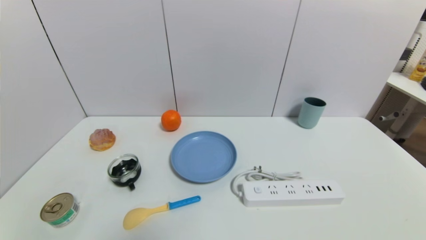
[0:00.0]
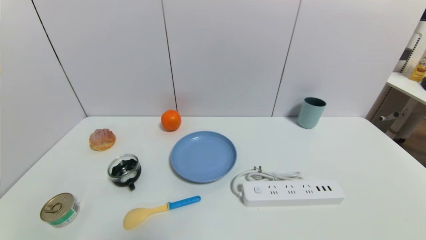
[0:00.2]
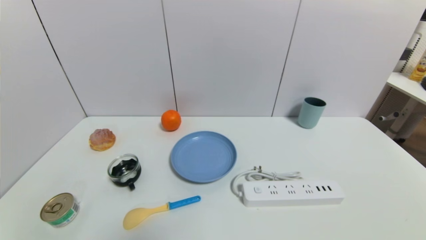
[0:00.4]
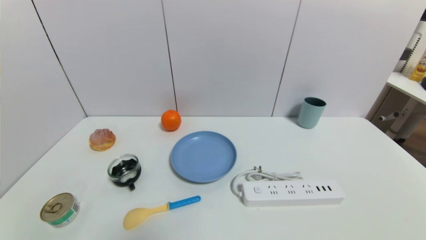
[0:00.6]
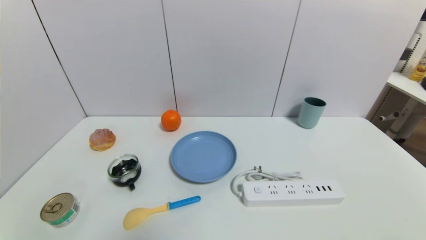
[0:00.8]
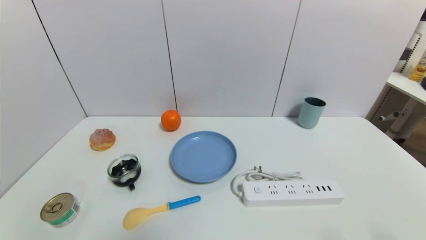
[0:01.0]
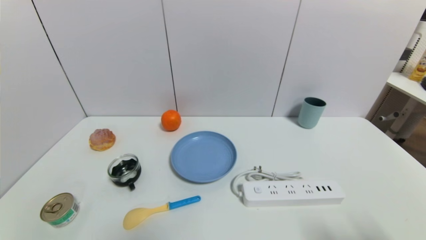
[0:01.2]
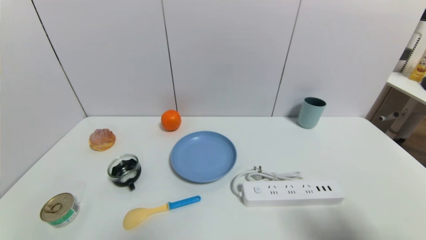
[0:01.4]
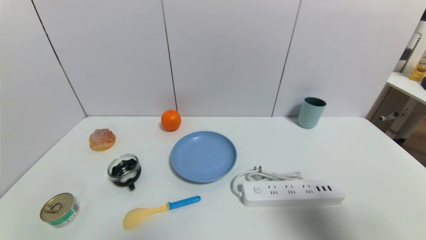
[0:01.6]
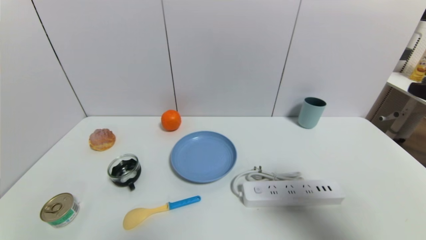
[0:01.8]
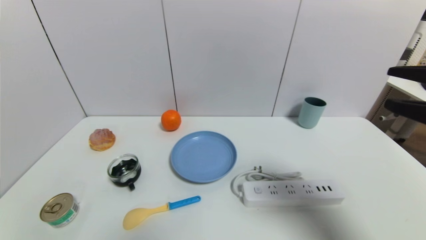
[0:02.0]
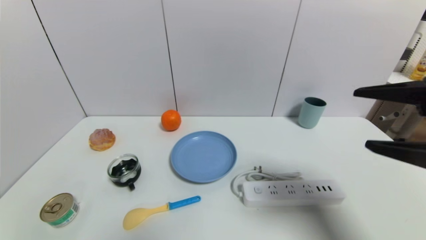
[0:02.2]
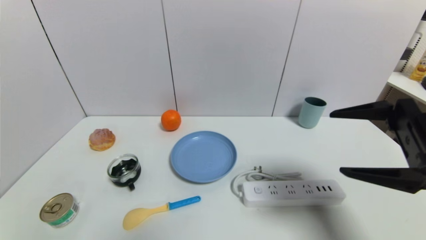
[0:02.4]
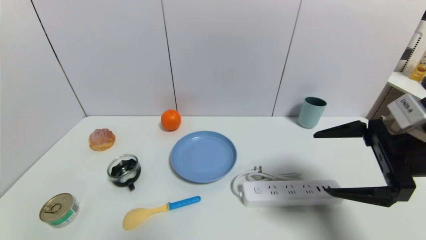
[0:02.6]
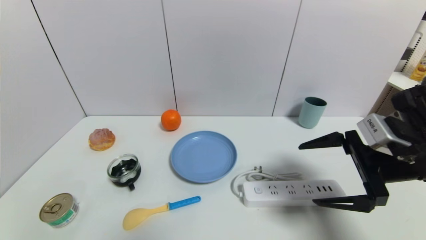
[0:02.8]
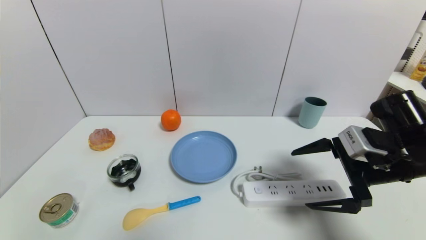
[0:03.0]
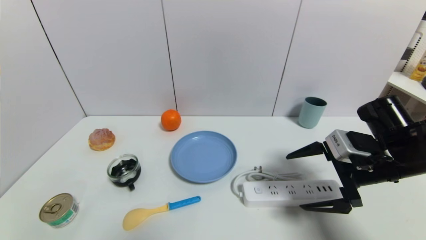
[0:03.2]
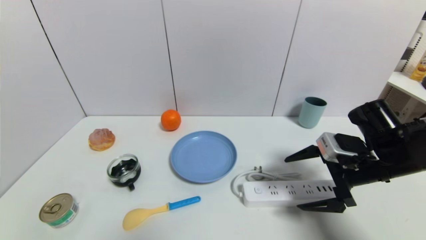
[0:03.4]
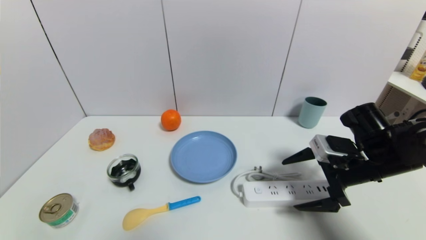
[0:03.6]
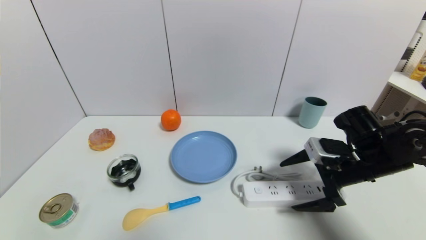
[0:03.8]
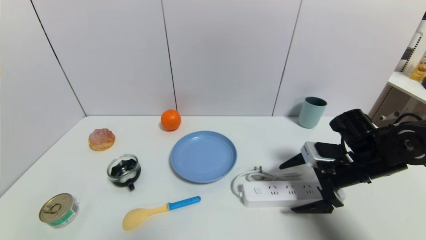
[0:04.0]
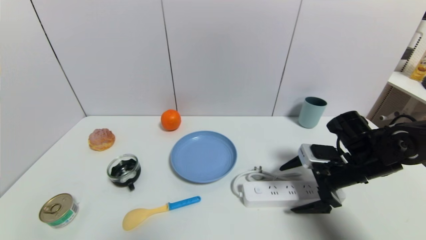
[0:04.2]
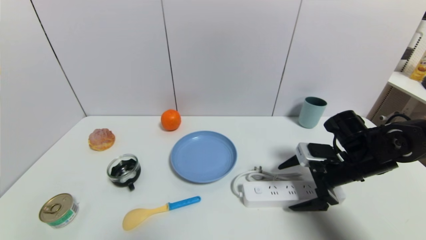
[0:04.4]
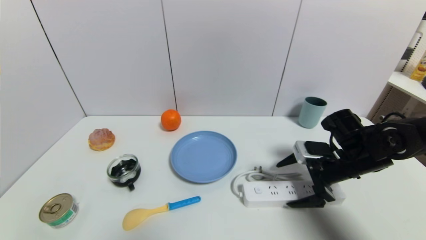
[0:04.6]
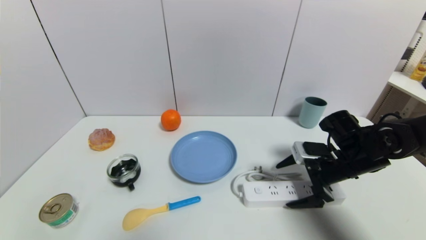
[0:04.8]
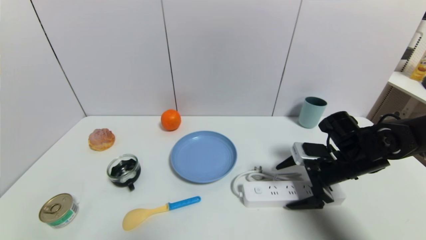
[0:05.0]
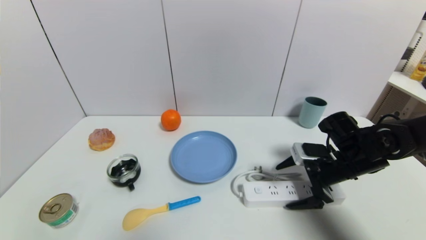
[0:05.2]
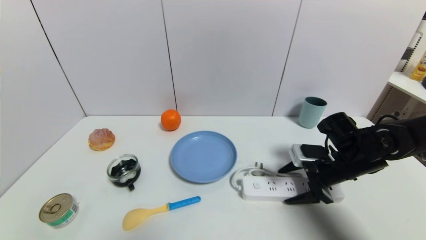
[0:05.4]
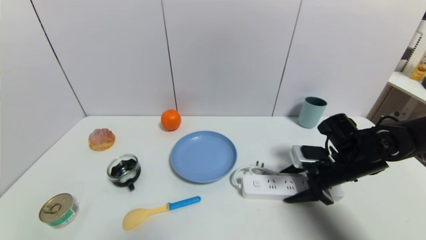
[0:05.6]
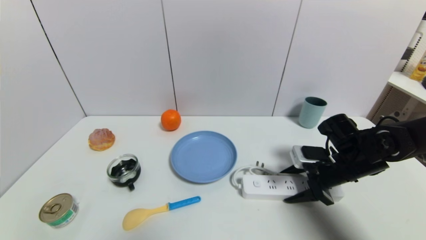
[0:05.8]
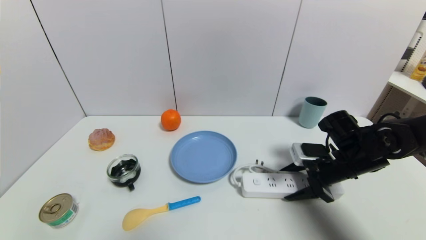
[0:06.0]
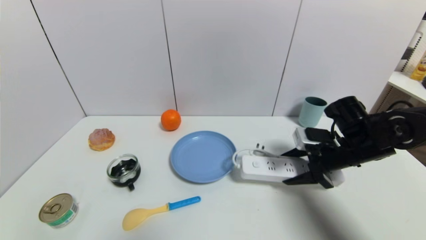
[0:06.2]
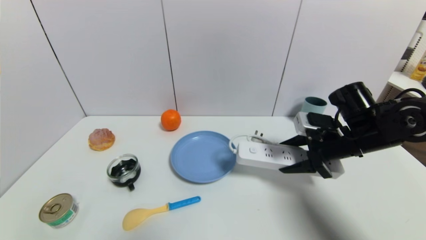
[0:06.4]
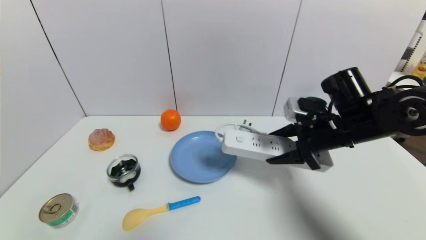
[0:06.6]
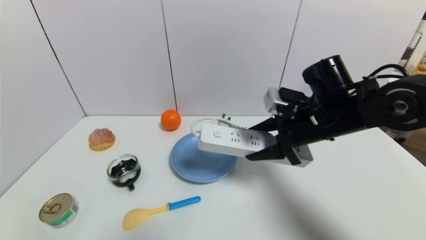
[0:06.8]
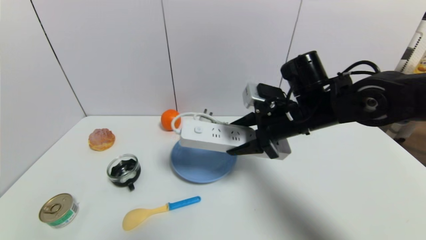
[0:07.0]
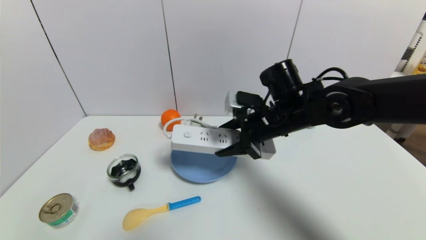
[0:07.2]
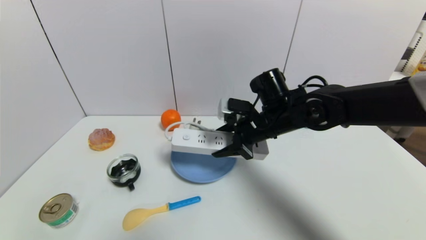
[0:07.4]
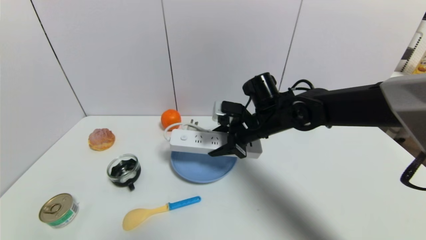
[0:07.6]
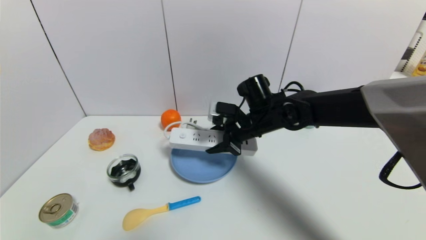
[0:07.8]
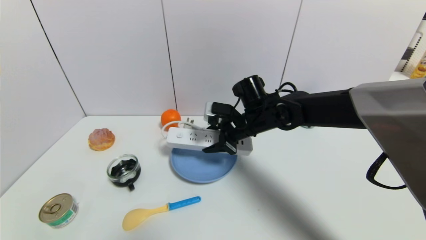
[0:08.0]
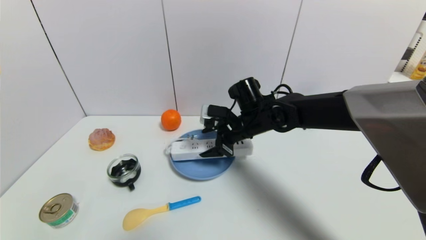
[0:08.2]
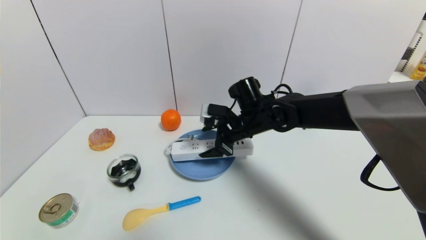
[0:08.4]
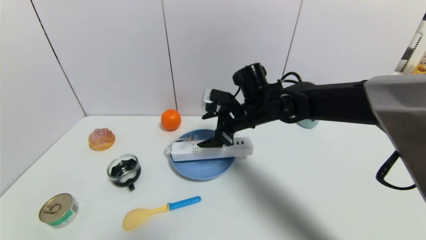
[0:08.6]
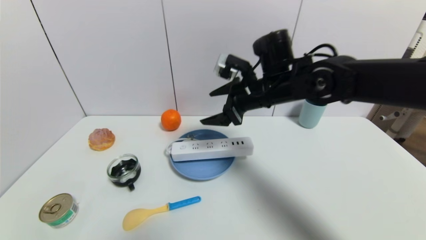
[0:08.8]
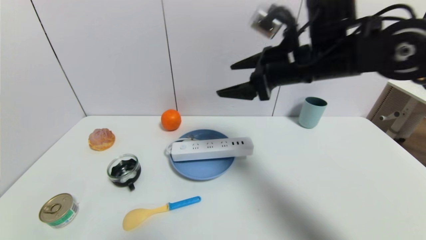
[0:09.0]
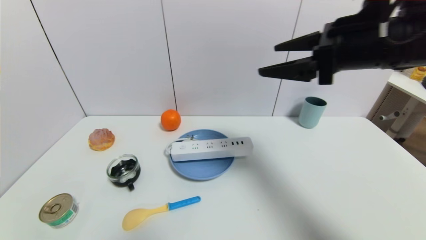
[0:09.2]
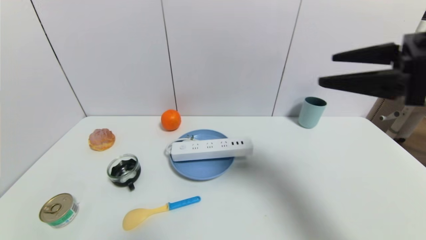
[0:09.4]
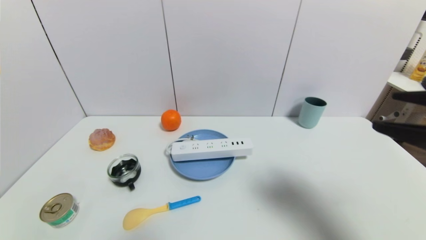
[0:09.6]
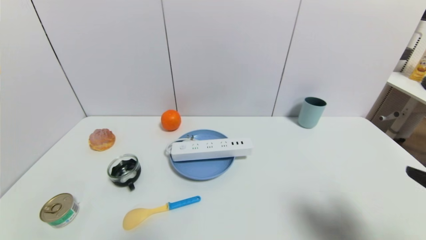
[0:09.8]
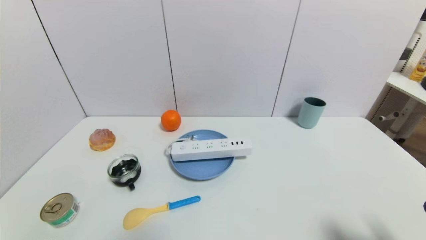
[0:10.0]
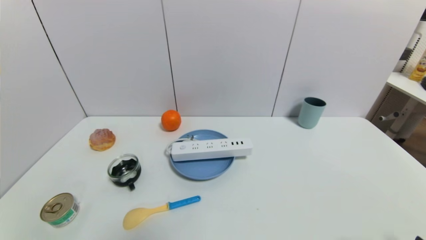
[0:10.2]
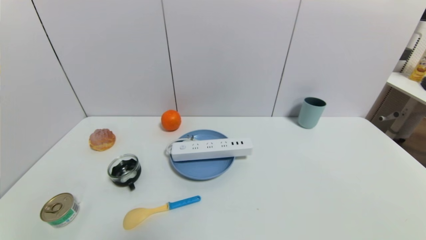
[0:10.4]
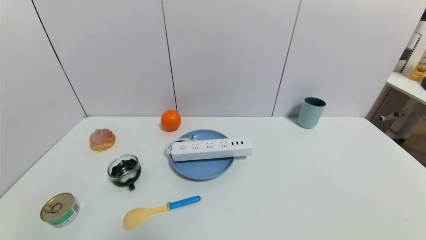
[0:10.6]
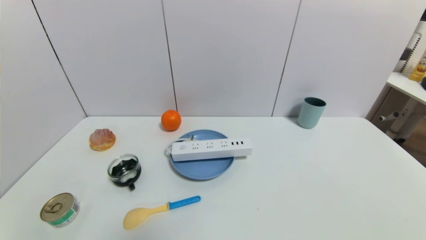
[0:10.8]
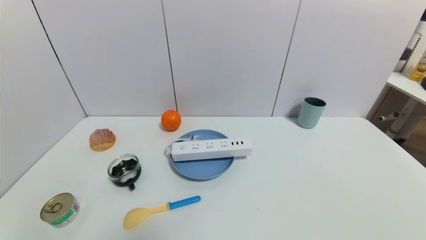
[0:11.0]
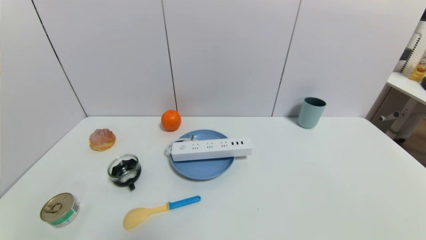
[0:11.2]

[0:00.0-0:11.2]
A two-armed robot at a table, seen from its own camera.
Task of the whole recording: use a gripper to pick the target object and place on the blue plate.
Step, 0:00.0 to 0:05.4: Grasp the plugboard with the right gripper.
Step, 0:05.6 to 0:08.2: Place the plugboard on the blue plate with the right gripper.
0:00.0 to 0:01.6: The right gripper is displaced upward and forward by some 25 cm.
0:01.6 to 0:03.2: The right gripper goes approximately 20 cm forward and downward.
0:03.2 to 0:04.8: The right gripper heads downward and forward, covering approximately 10 cm.
0:04.8 to 0:06.4: The right gripper travels upward by roughly 5 cm, and closes.
0:06.4 to 0:08.0: The right gripper moves to the left and forward, some 20 cm.
0:08.0 to 0:09.6: The right gripper travels backward, to the right and upward by some 35 cm, and opens.
0:09.6 to 0:11.2: The right gripper heads downward and backward, covering some 25 cm.

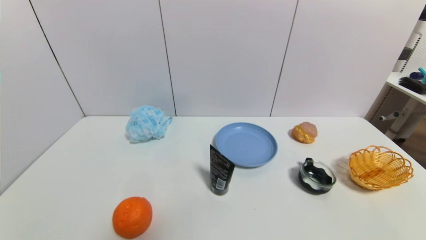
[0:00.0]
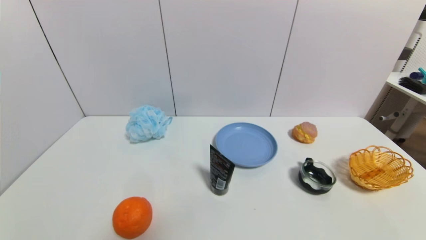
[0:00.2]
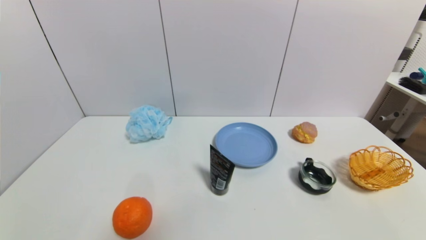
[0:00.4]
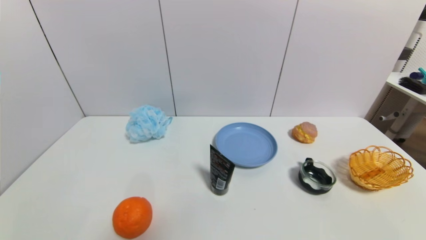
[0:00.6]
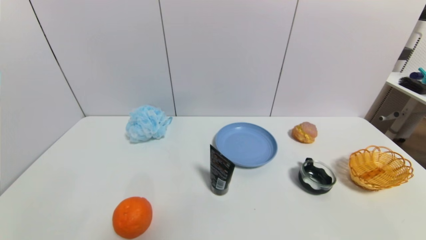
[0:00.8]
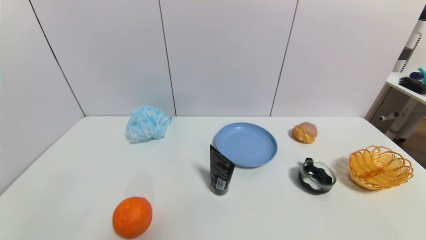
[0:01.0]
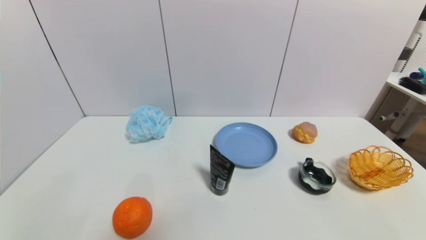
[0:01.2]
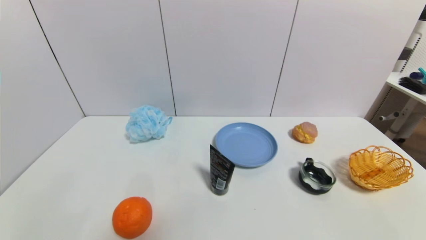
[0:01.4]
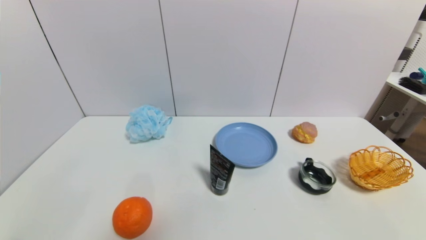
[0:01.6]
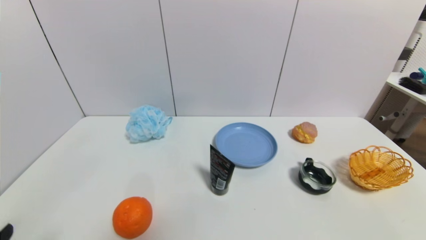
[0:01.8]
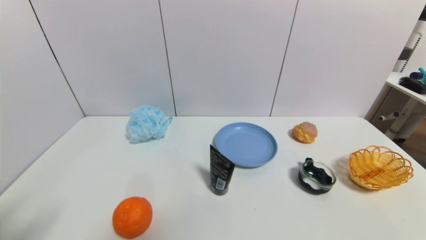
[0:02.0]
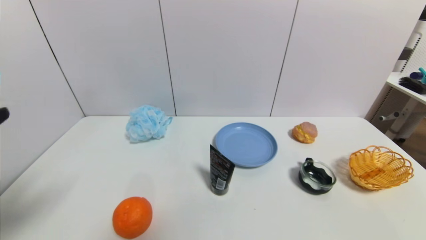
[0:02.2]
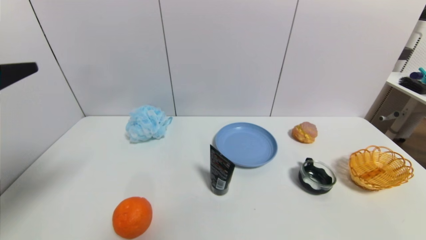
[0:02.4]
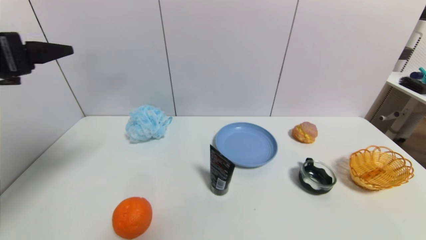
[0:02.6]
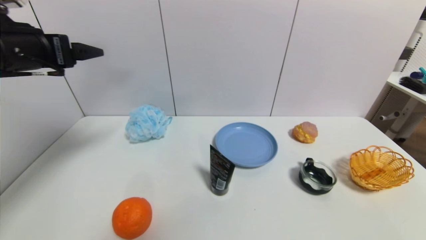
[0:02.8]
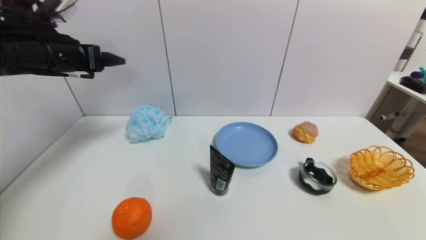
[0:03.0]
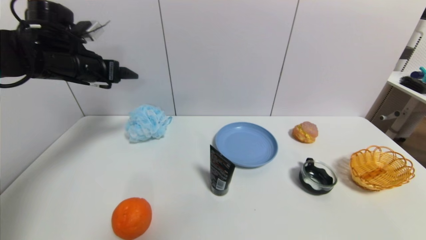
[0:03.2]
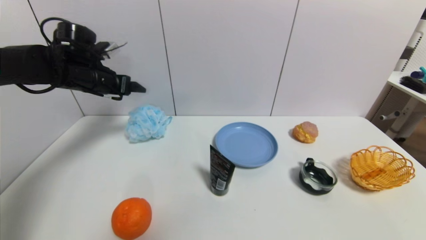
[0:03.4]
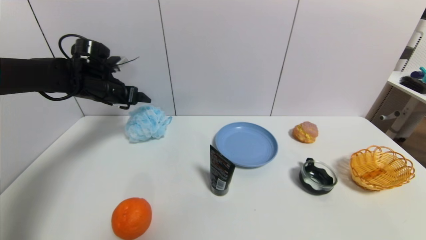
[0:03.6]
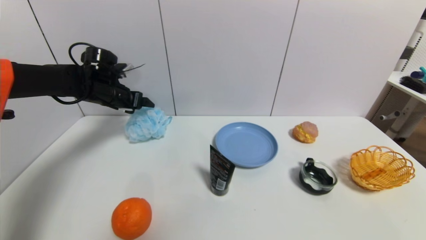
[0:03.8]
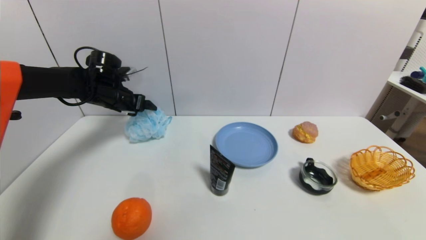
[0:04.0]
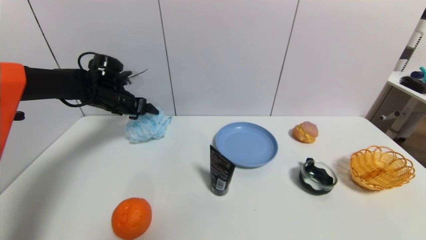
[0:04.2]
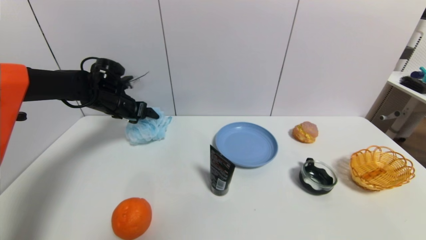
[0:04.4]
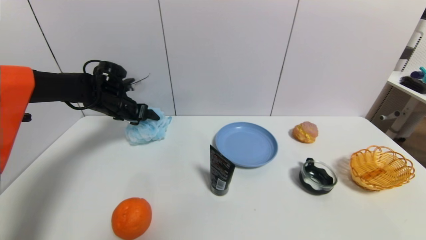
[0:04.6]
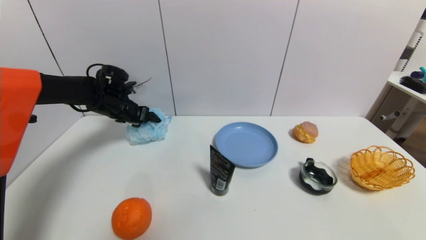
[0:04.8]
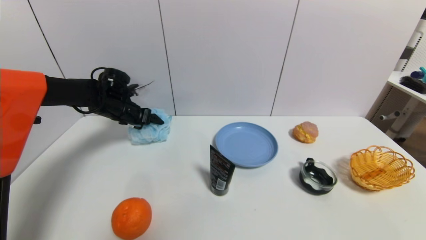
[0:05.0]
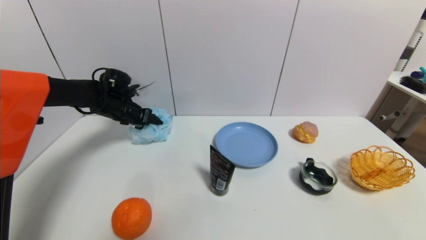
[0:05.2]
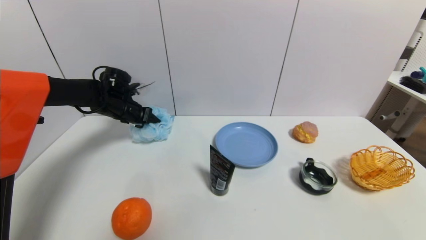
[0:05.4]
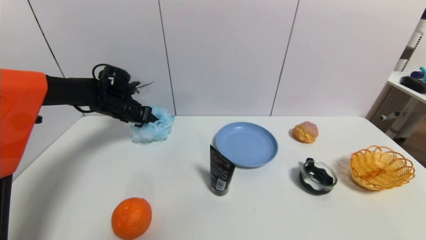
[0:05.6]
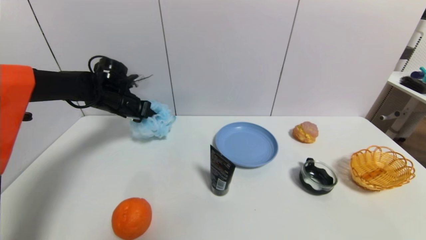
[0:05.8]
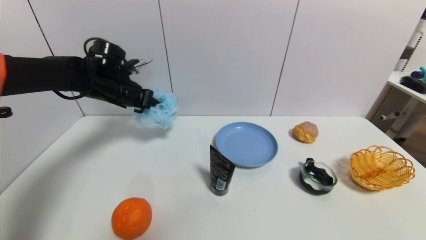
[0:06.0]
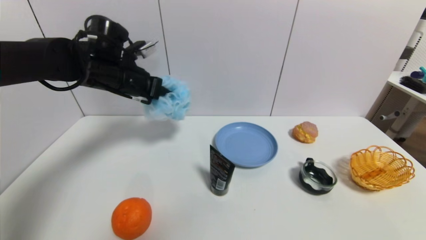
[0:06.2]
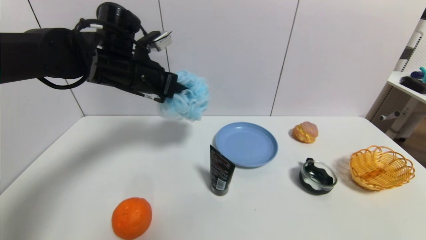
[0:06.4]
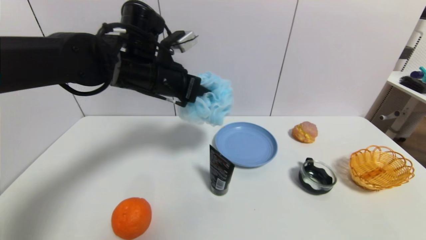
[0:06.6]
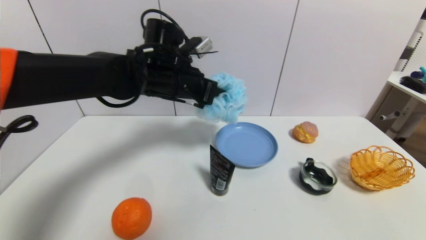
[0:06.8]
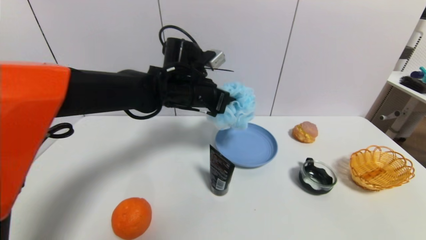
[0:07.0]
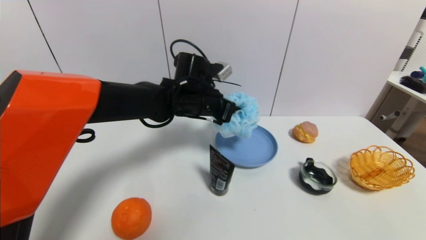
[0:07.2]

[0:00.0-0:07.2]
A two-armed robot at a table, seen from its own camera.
Task of the whole recording: use a gripper to pick the target object and place on the blue plate.
Step, 0:00.0 to 0:05.4: Grasp the shower sphere with the left gripper.
0:00.0 to 0:01.4: Neither gripper changes place.
0:01.4 to 0:02.8: The left gripper travels upward and forward by some 40 cm.
0:02.8 to 0:04.4: The left gripper heads forward and downward, covering approximately 25 cm.
0:04.4 to 0:05.8: The left gripper closes.
0:05.8 to 0:07.2: The left gripper moves to the right, approximately 20 cm.
